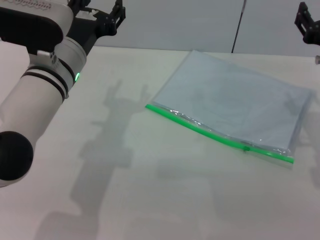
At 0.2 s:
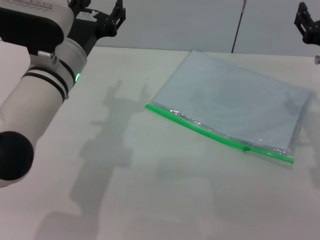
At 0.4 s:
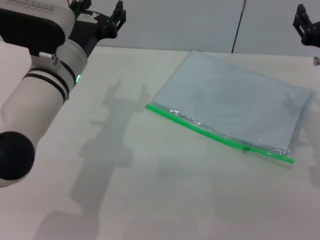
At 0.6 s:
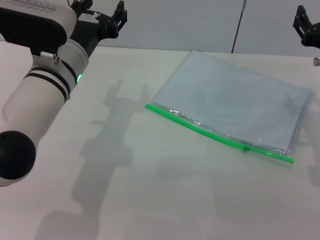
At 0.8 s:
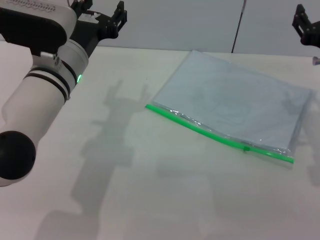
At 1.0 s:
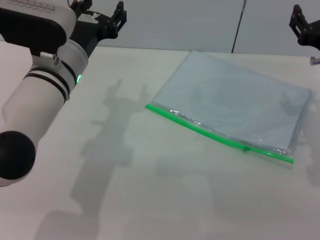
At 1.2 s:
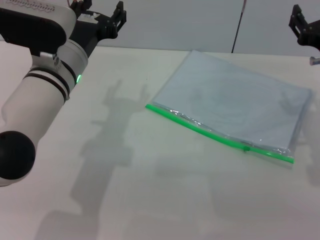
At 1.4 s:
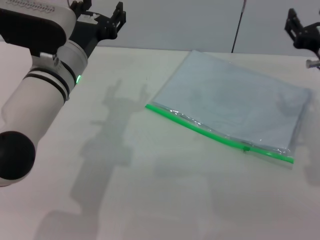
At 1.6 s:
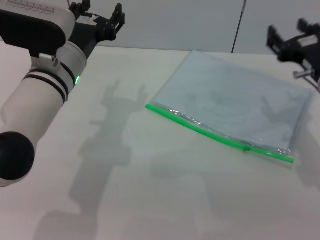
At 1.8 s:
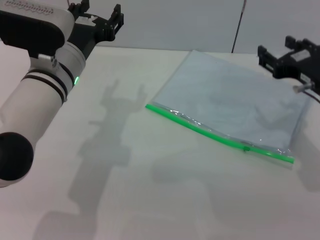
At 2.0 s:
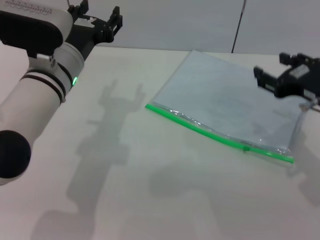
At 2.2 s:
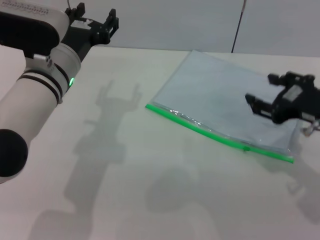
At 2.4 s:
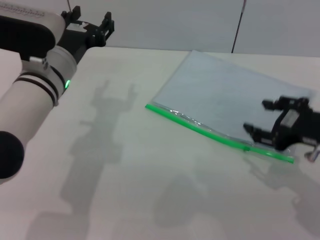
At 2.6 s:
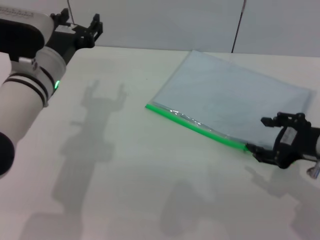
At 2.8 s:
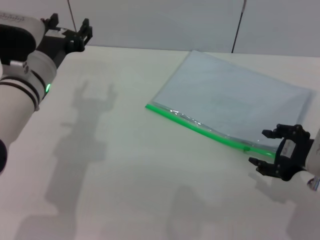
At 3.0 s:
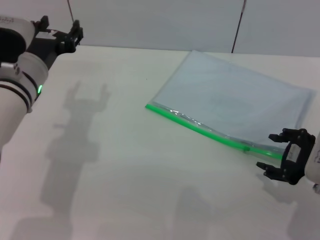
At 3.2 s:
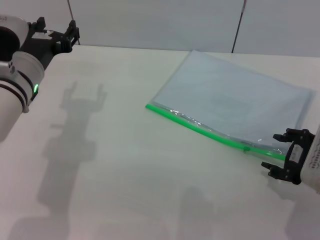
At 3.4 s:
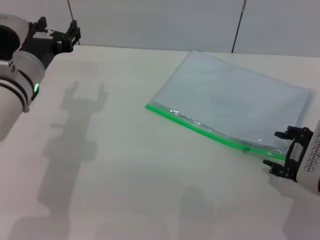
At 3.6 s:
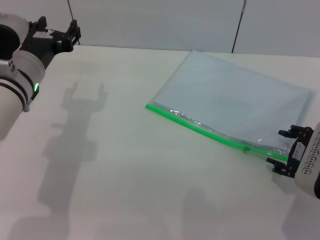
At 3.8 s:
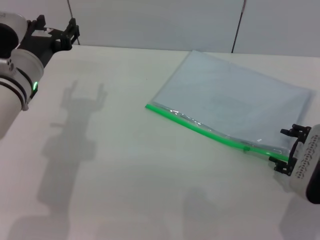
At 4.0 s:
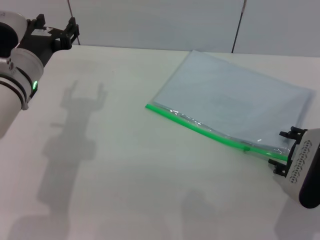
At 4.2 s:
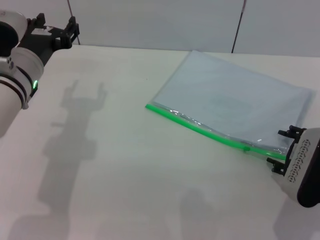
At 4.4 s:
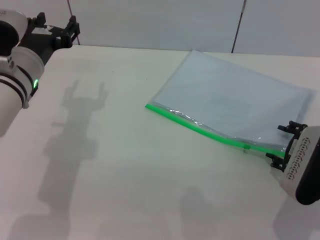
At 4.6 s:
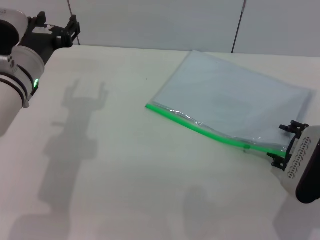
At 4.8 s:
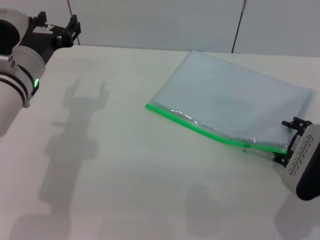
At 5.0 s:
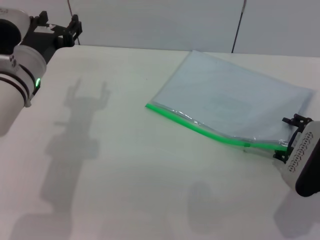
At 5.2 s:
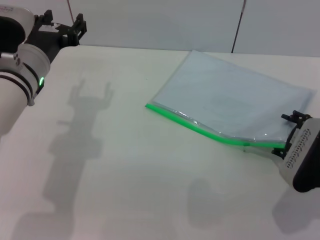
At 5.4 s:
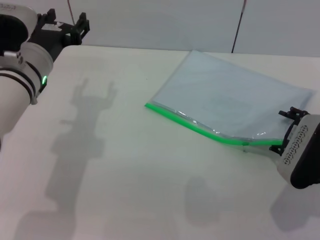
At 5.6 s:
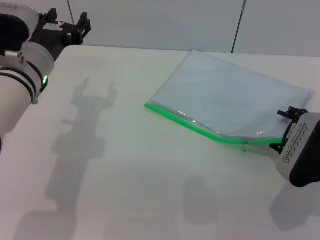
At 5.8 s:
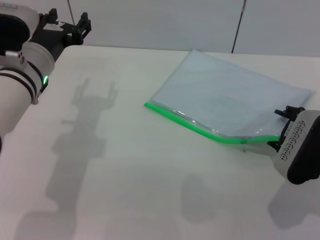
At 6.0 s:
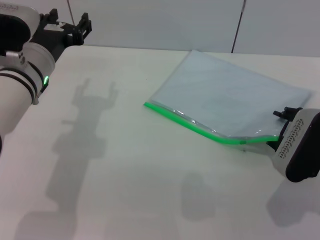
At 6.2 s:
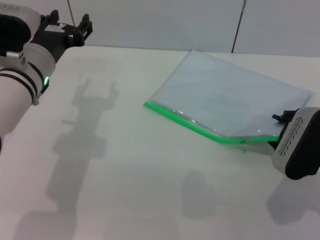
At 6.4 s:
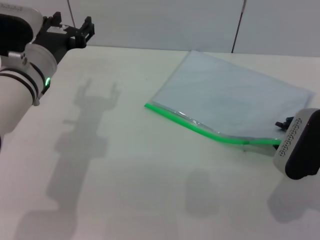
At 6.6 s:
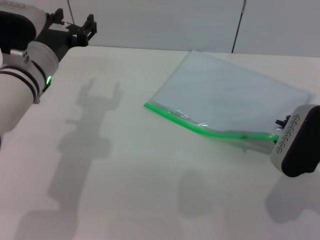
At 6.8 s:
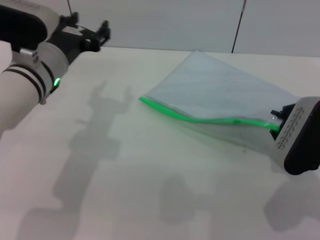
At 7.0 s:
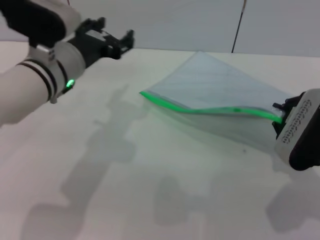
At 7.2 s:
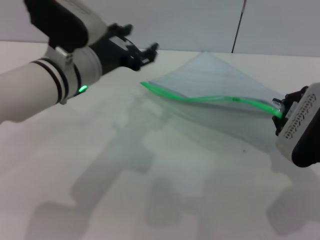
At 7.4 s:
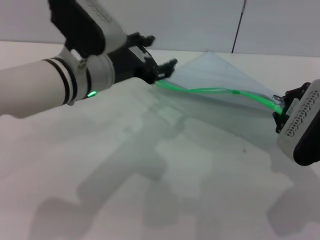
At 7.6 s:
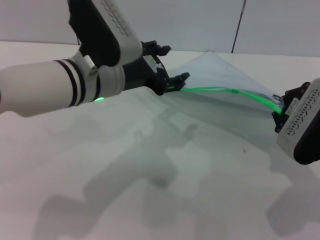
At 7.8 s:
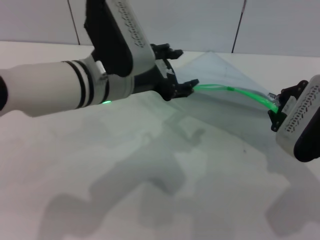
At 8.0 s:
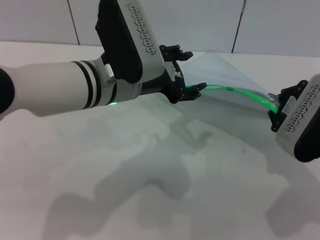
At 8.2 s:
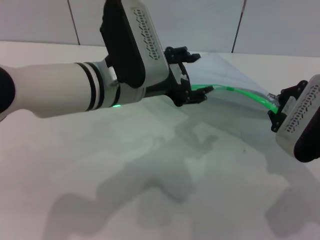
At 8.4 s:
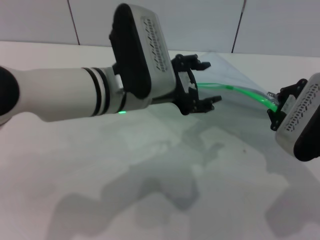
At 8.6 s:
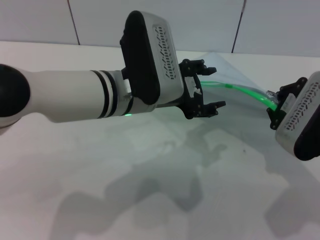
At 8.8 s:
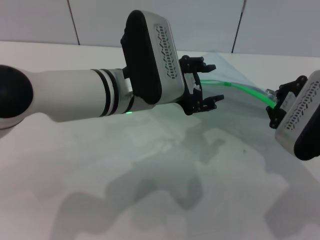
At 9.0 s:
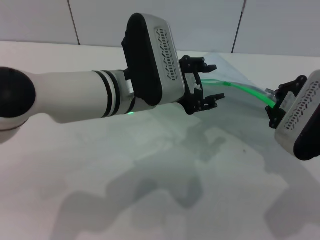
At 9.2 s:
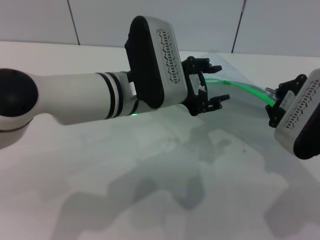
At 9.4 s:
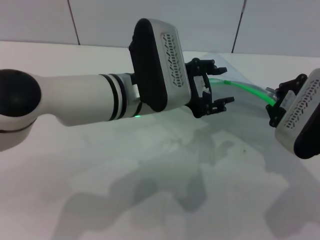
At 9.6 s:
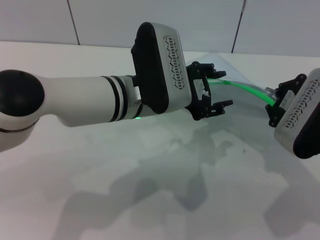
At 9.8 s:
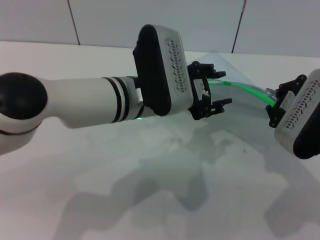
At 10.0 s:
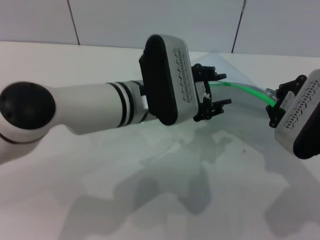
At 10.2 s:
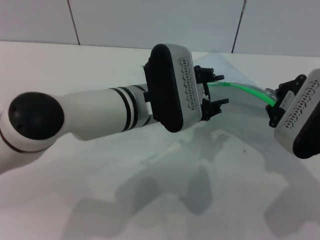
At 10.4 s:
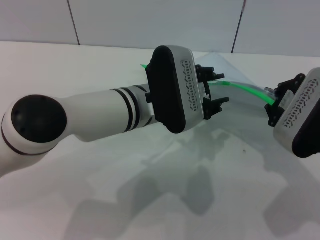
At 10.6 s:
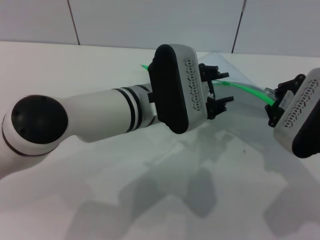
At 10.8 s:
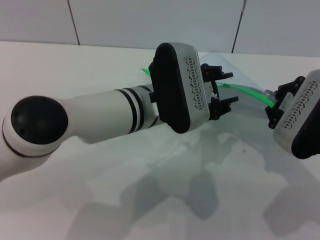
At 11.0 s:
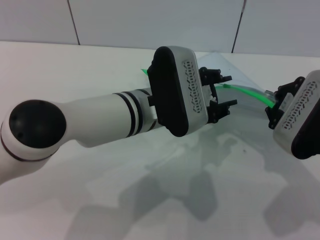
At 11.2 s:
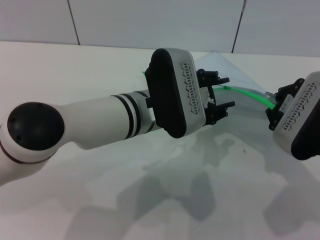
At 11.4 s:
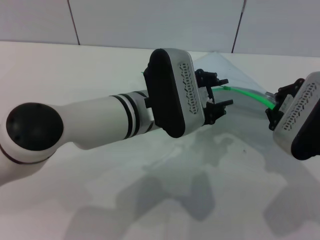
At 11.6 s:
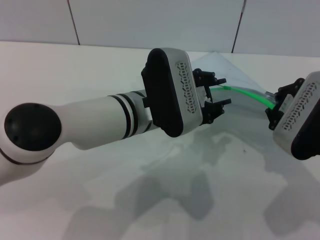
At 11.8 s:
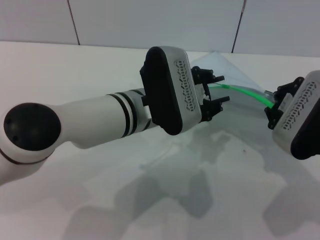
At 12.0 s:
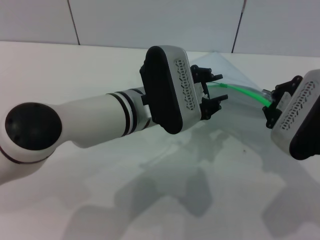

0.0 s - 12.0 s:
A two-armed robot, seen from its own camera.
Step, 0.0 s - 7.8 s: Pick up the transparent plastic bag with the right gripper.
0.0 s - 1.6 s: The grippers make only small movements.
1.6 s - 3.0 s: The right gripper goes about 5 cm backward. The left gripper moves to the left, approximately 5 cm.
3.0 s - 6.0 s: The grippers stay close to where they were, moving slightly.
6.0 s - 7.6 s: The left gripper goes approximately 10 cm to the right. Meanwhile the right gripper goes some 5 cm upward, and closes its fingers.
10.4 s - 12.0 s: The two grippers keep their place.

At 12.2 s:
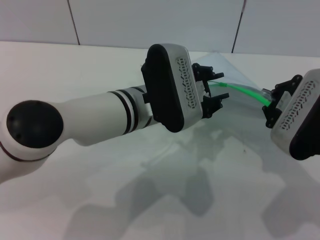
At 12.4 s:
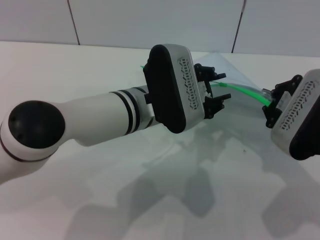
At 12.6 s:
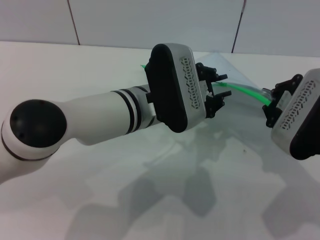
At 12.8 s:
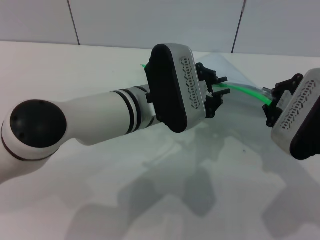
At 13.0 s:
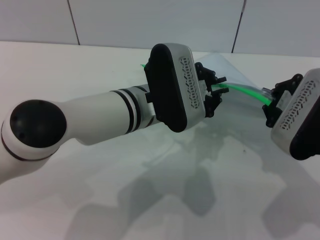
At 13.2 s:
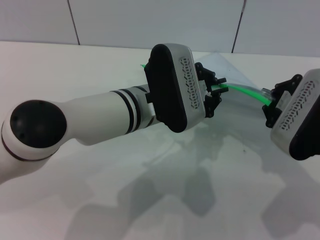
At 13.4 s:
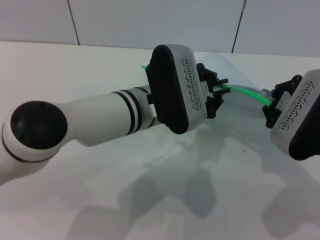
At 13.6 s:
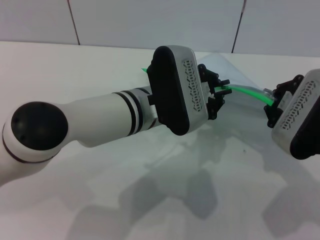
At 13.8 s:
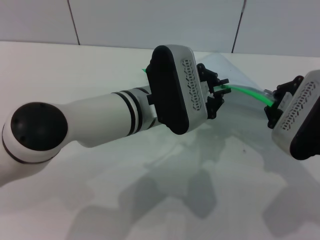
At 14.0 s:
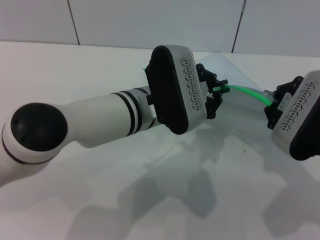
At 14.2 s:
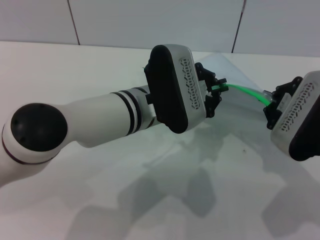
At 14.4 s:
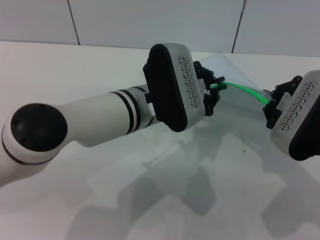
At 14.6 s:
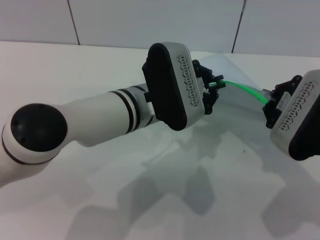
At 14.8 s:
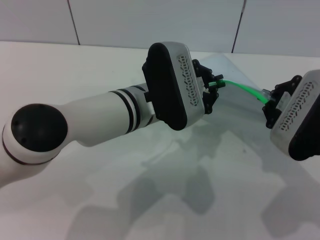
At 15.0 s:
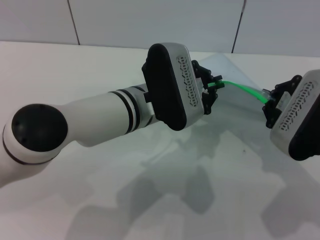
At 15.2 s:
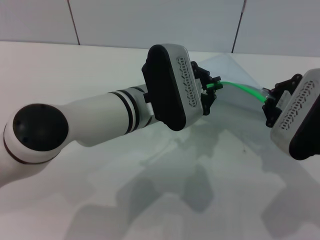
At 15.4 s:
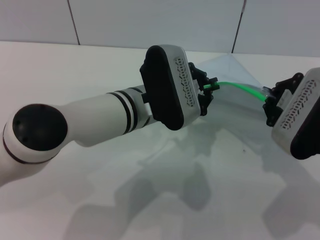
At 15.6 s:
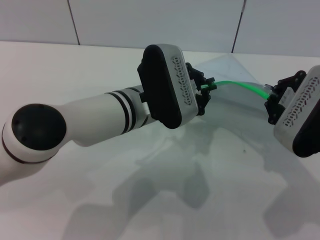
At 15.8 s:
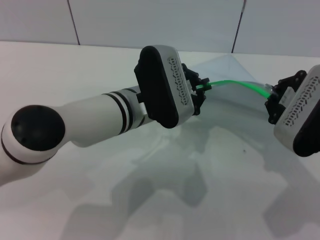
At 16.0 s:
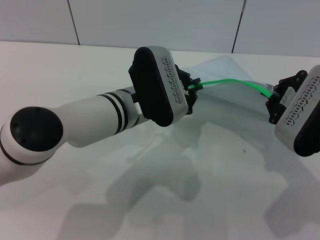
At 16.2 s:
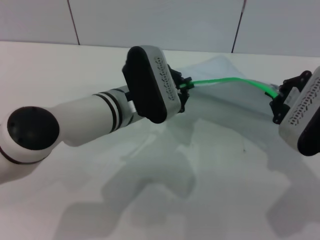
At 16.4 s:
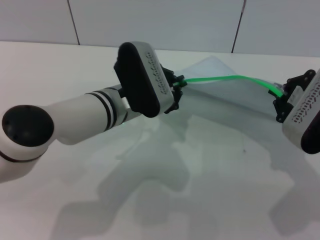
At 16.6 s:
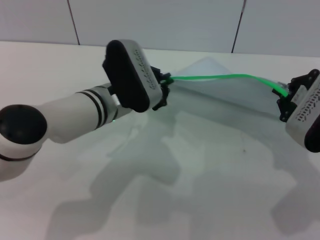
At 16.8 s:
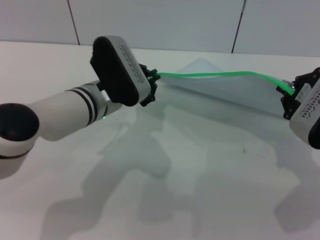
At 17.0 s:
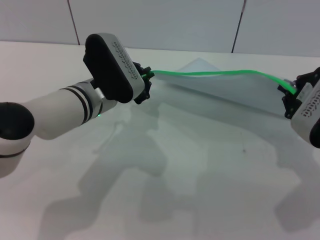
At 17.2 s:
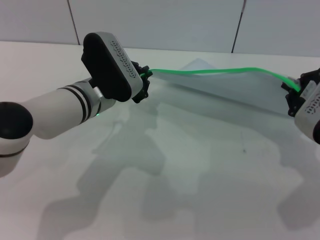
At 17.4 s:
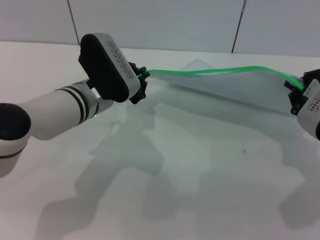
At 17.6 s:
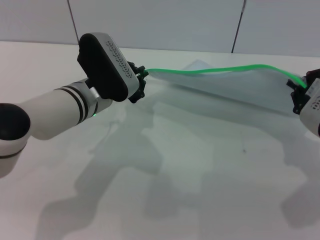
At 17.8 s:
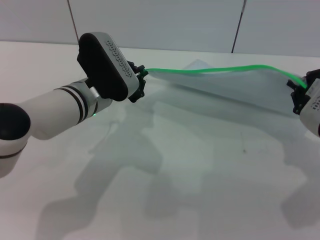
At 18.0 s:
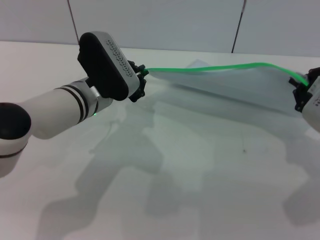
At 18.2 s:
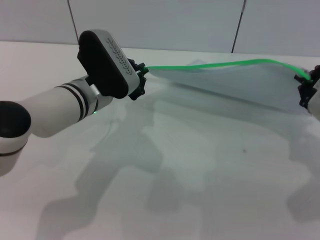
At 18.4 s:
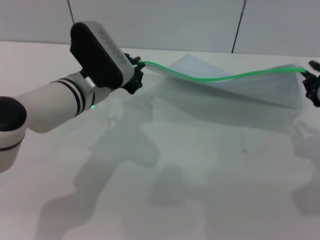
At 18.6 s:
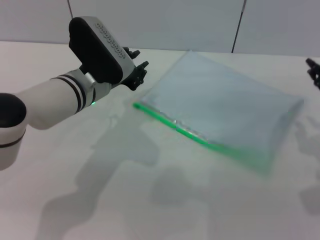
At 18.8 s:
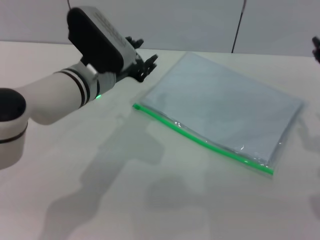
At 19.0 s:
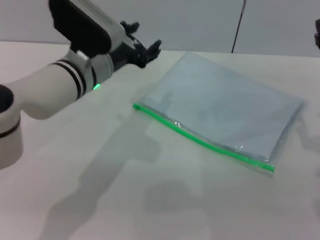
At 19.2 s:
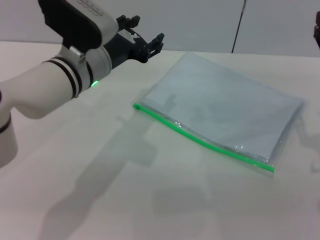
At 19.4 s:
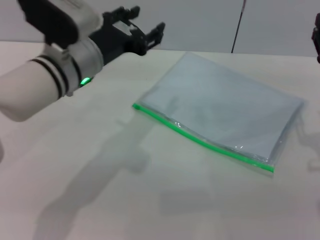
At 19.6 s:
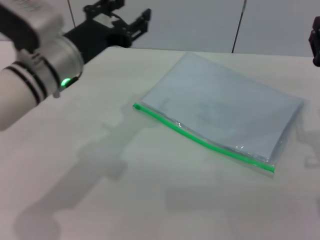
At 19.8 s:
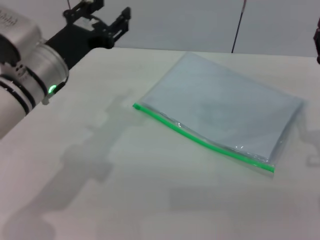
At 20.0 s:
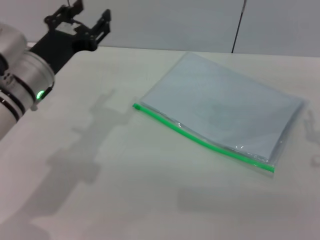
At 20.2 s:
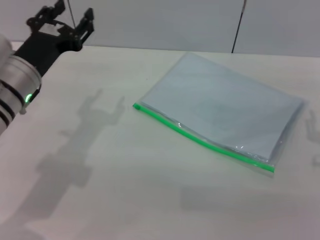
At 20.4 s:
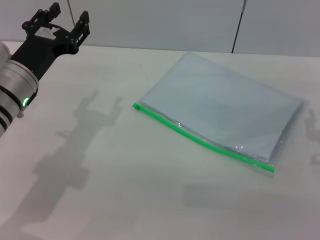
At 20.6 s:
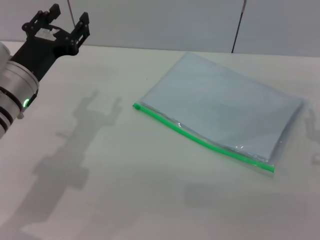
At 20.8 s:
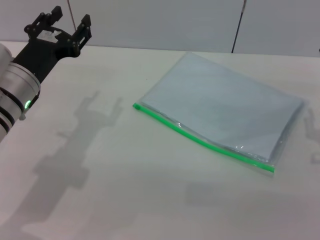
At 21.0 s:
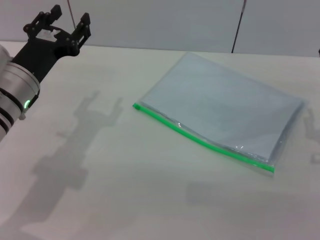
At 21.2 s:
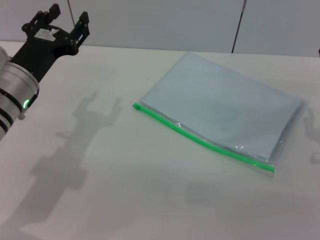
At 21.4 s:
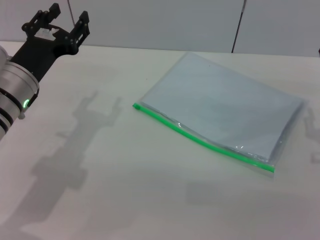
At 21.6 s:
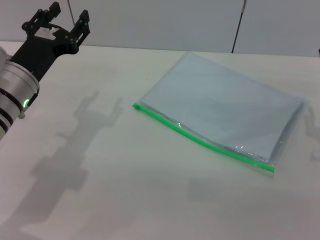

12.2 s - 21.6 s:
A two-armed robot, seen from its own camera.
Step, 12.2 s - 18.2 s: Pulling up the zipper on the transparent plastic bag with the left gripper to close it.
Step, 18.4 s - 18.8 s: Place the transparent plastic bag.
12.2 s - 13.8 s: The left gripper closes its fingers.
13.8 s - 15.4 s: Neither gripper changes place.
15.4 s - 17.0 s: The left gripper is displaced to the left by approximately 5 cm.
17.0 s - 18.4 s: The grippers make only small movements.
18.4 s - 20.0 s: The left gripper moves to the left, roughly 5 cm, and opens. Meanwhile the right gripper heads downward, covering some 5 cm, and opens.
20.0 s - 21.6 s: There are only small adjustments of the grippers.
